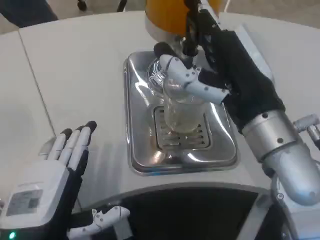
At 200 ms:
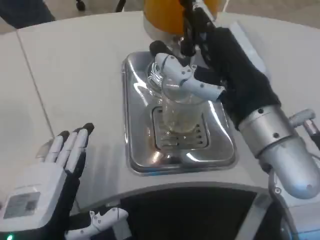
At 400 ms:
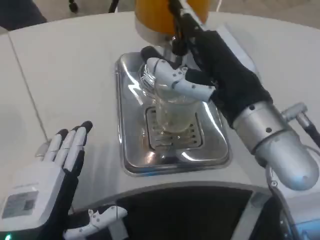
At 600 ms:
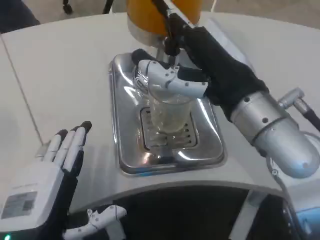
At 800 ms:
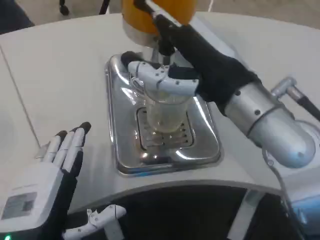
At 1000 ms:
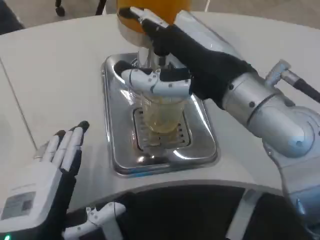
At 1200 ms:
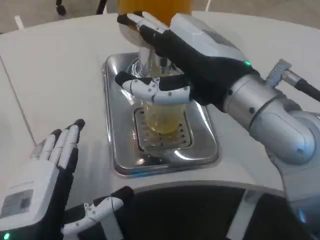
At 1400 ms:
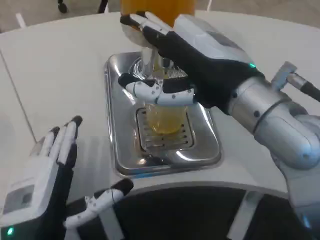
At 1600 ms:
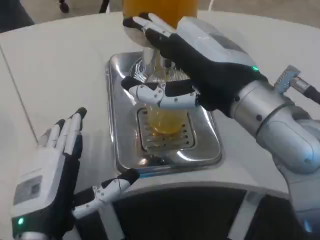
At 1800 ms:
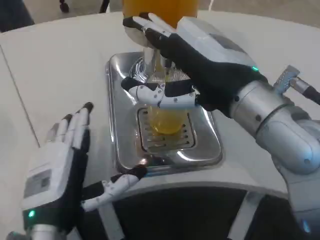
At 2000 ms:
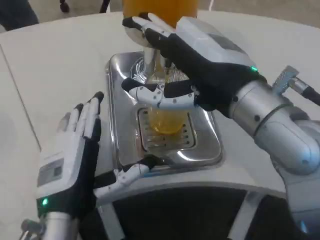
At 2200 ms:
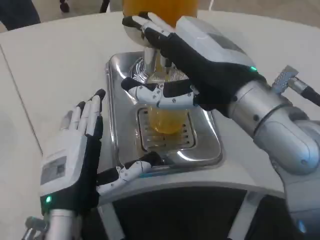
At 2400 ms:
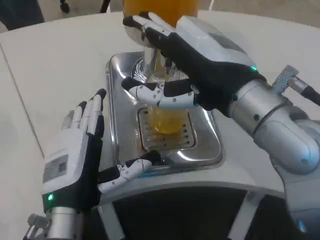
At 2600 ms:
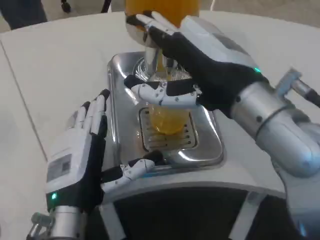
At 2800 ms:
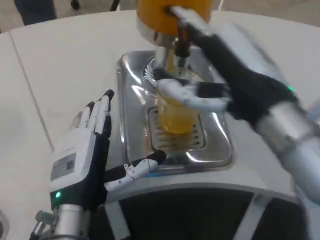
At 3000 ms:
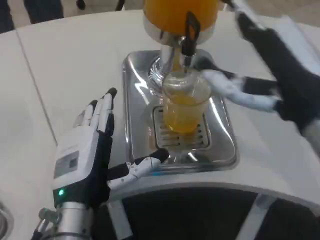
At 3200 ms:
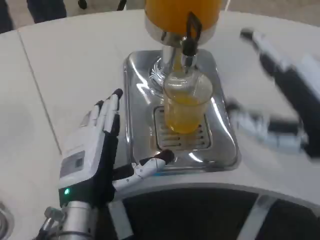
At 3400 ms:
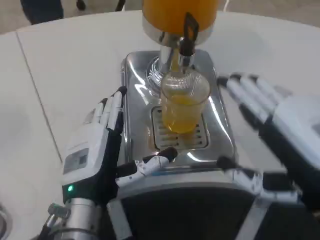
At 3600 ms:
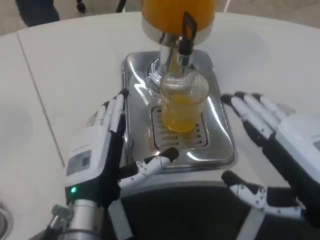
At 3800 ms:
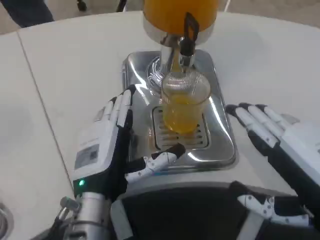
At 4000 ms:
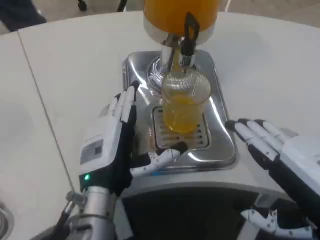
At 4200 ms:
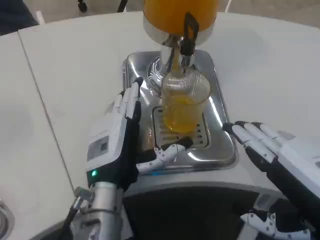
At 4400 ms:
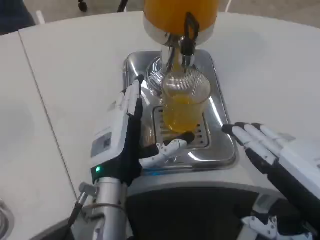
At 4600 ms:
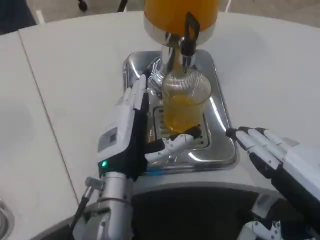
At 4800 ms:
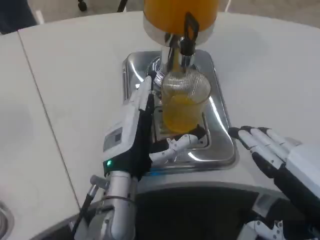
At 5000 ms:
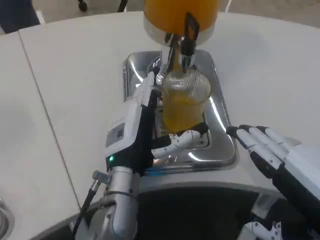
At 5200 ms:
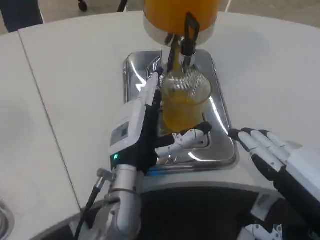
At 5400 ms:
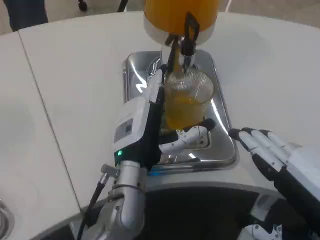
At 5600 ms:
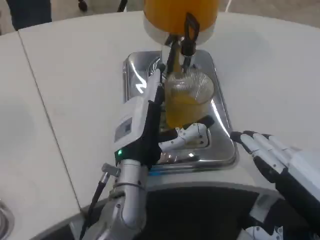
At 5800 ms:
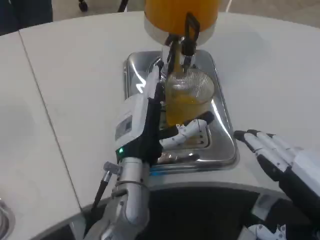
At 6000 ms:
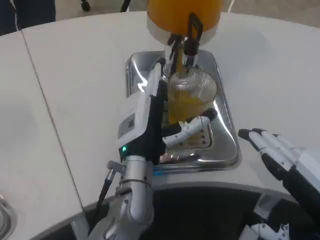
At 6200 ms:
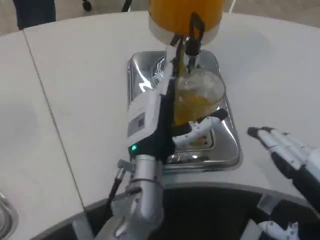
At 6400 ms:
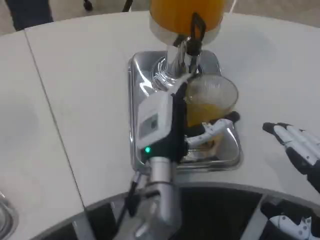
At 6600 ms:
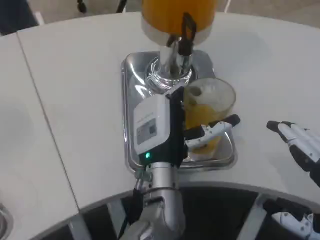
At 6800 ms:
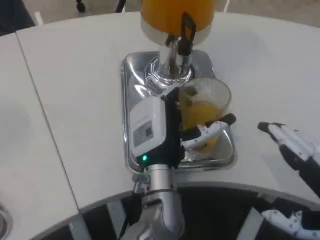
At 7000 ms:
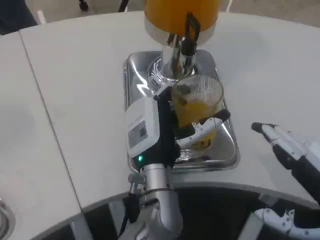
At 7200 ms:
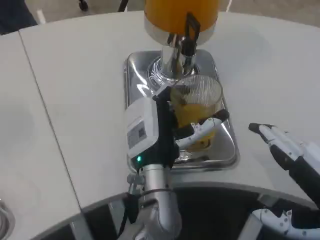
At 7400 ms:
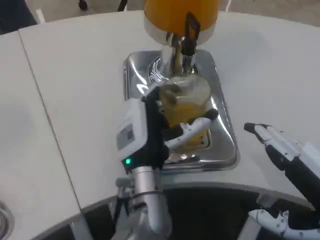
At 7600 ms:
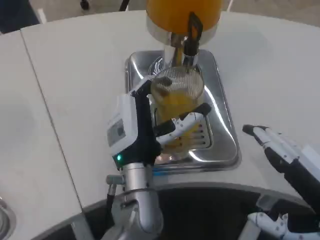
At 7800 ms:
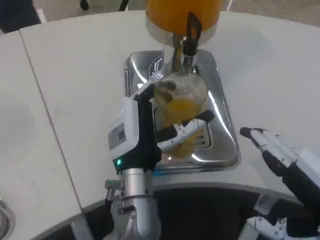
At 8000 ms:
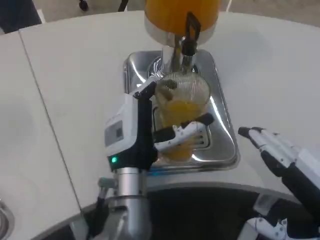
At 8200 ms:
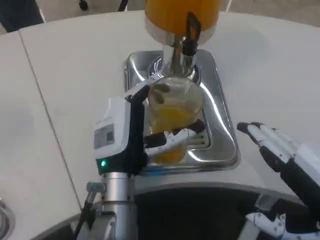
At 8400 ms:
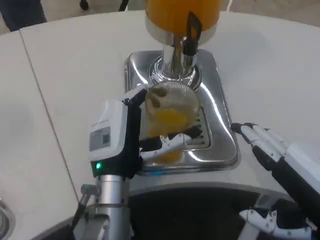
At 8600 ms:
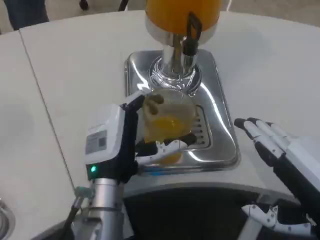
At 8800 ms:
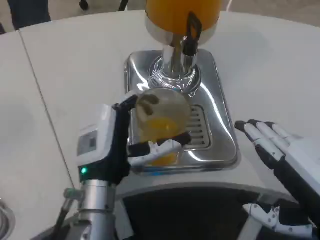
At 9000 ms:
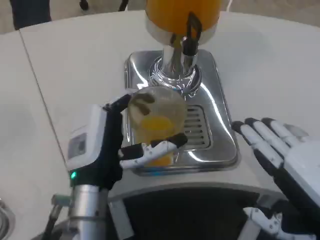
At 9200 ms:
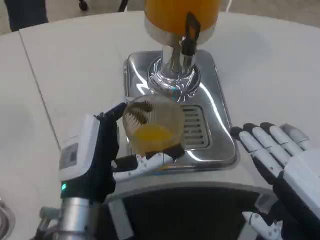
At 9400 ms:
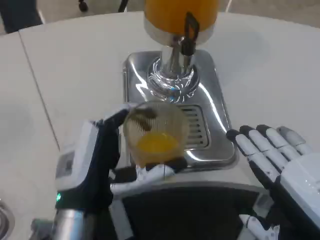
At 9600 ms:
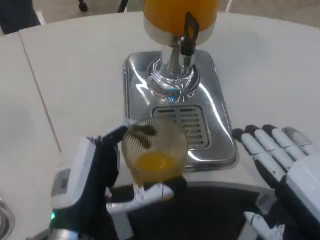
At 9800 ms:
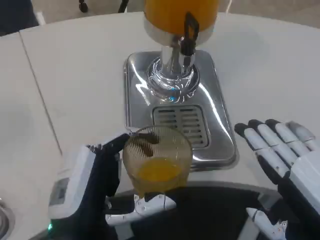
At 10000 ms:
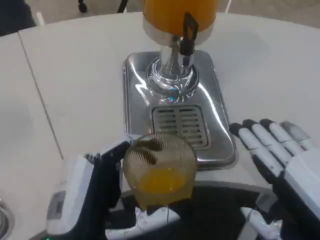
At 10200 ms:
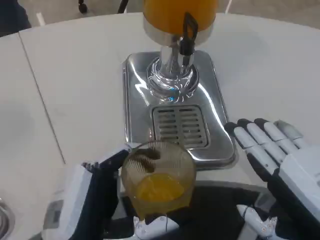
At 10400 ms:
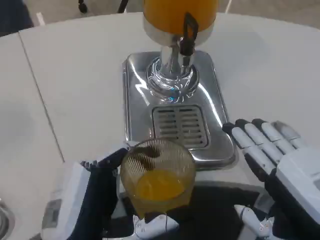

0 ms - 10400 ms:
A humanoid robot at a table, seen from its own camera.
Task of the whole recording: Grasp the cup under the faucet to collect the drink, then remove the cup.
1400 ms - 3000 ms: The right hand moves to the right, about 5 cm, while the left hand goes approximately 5 cm forward.
3000 ms - 4400 ms: The right hand travels backward and downward by about 10 cm; the left hand shifts by approximately 5 cm.
4400 ms - 6000 ms: The left hand moves about 5 cm.
6000 ms - 7400 ms: The hands make only small movements.
7400 ms - 9000 ms: The left hand heads to the left and backward, covering some 10 cm.
9000 ms - 10400 ms: The left hand travels backward by about 10 cm.

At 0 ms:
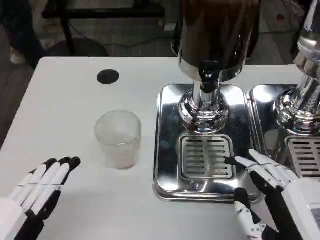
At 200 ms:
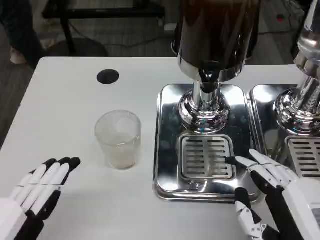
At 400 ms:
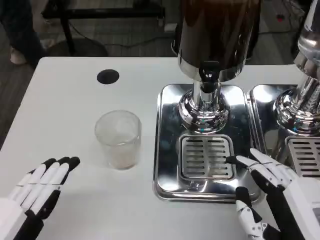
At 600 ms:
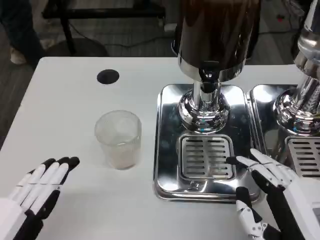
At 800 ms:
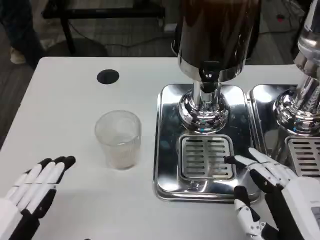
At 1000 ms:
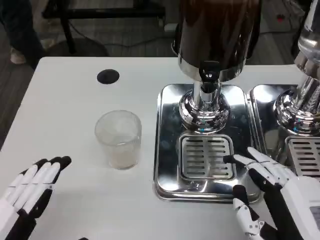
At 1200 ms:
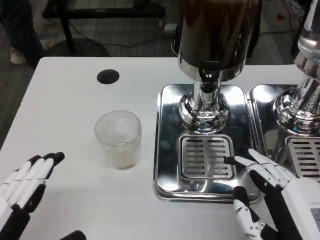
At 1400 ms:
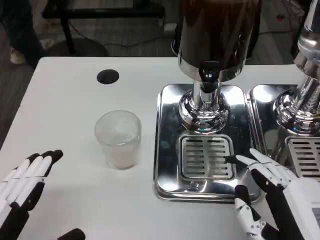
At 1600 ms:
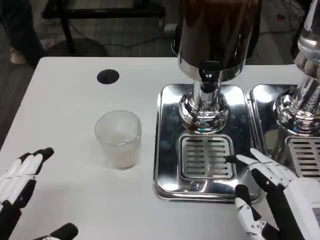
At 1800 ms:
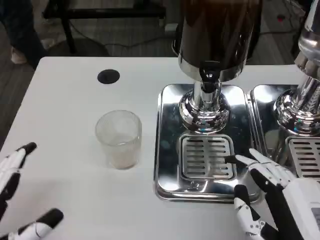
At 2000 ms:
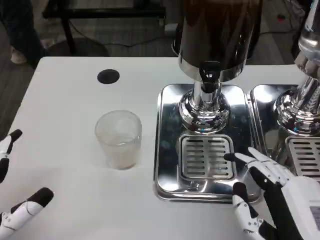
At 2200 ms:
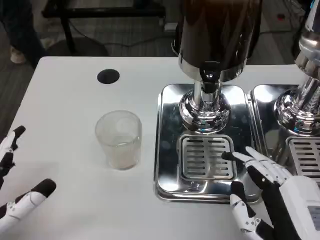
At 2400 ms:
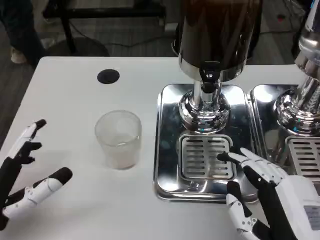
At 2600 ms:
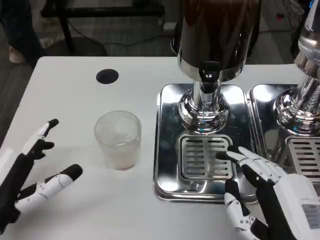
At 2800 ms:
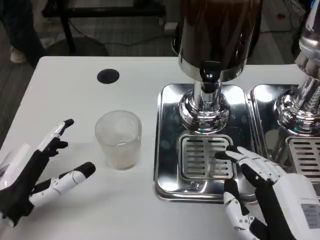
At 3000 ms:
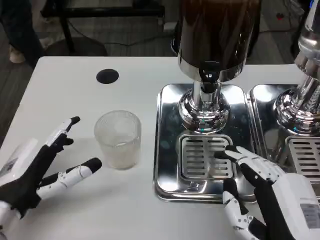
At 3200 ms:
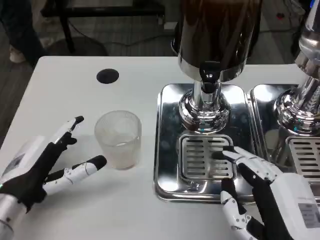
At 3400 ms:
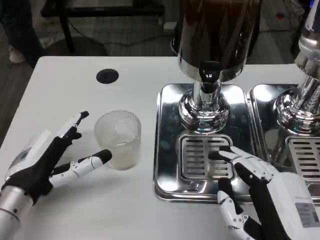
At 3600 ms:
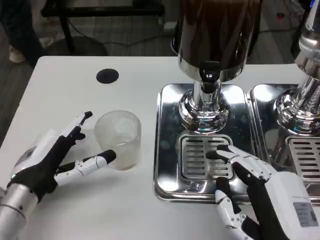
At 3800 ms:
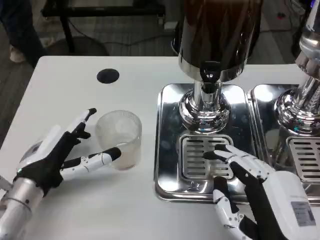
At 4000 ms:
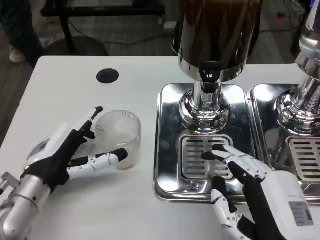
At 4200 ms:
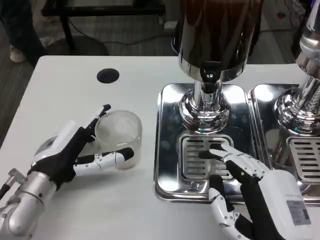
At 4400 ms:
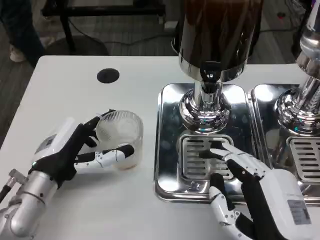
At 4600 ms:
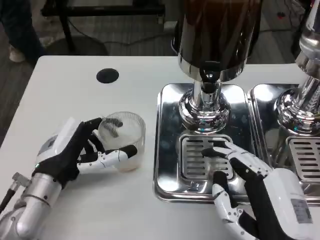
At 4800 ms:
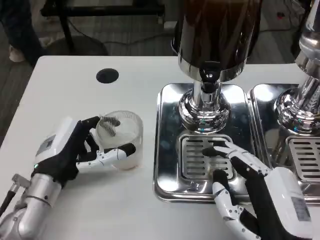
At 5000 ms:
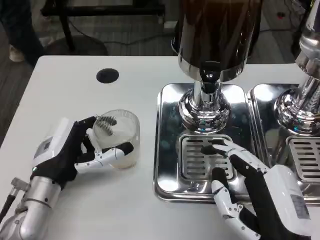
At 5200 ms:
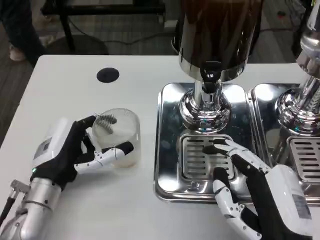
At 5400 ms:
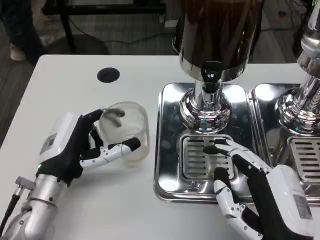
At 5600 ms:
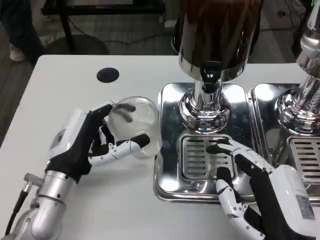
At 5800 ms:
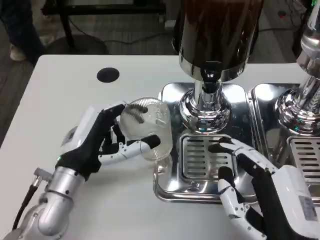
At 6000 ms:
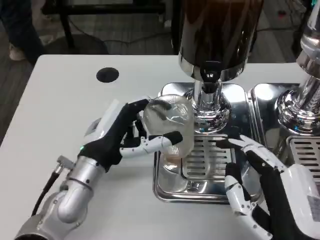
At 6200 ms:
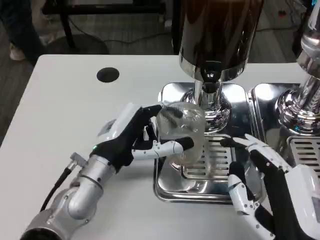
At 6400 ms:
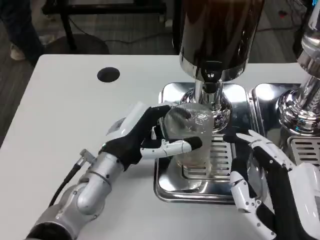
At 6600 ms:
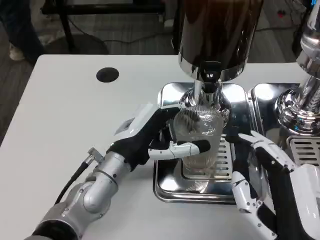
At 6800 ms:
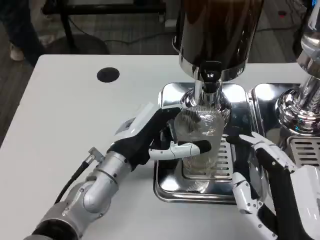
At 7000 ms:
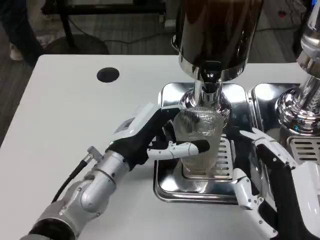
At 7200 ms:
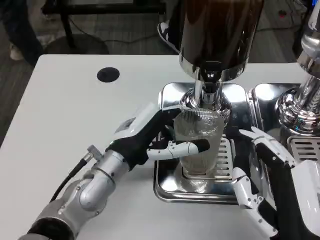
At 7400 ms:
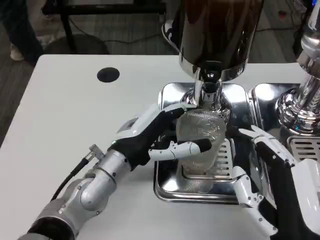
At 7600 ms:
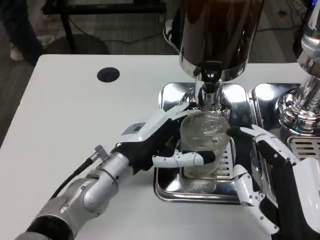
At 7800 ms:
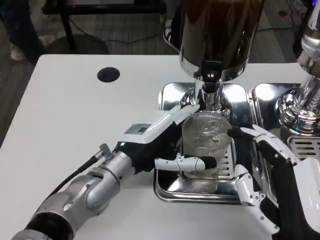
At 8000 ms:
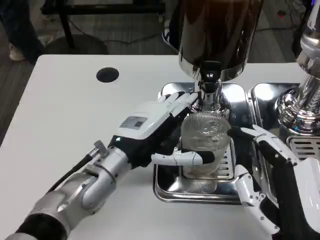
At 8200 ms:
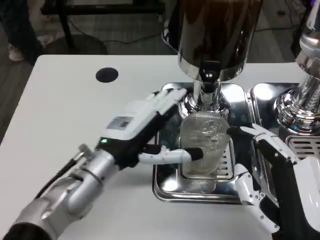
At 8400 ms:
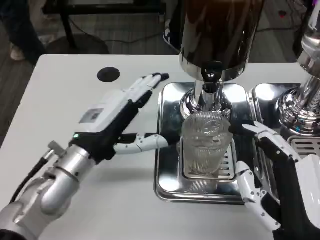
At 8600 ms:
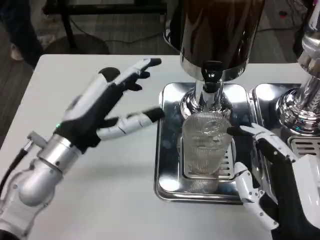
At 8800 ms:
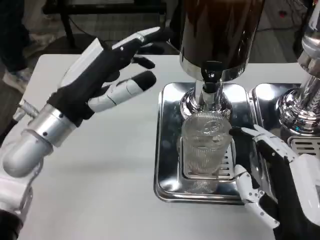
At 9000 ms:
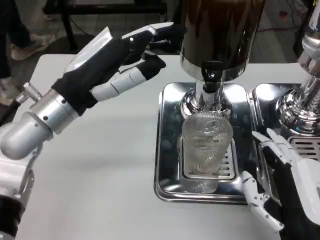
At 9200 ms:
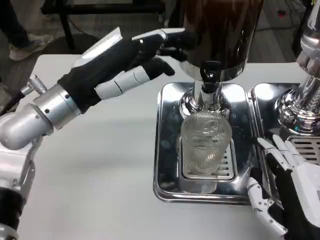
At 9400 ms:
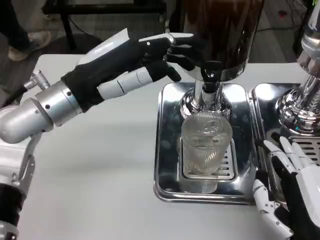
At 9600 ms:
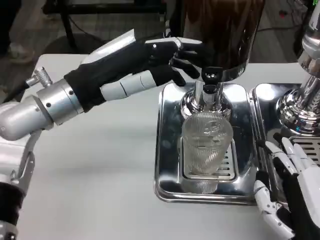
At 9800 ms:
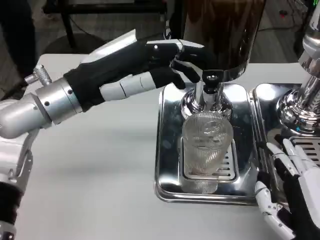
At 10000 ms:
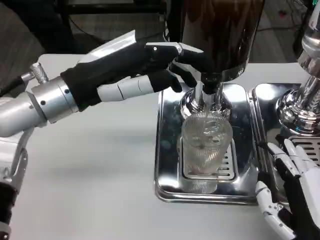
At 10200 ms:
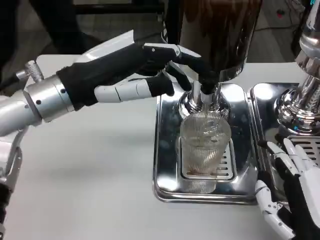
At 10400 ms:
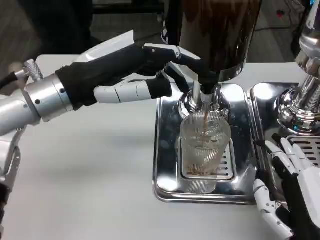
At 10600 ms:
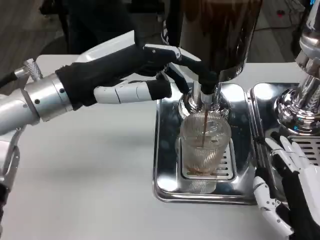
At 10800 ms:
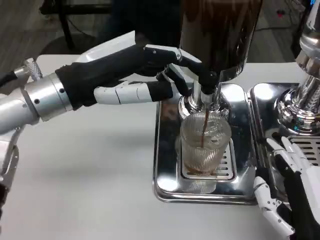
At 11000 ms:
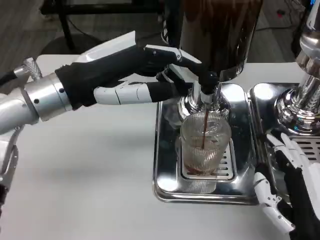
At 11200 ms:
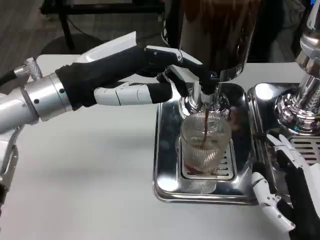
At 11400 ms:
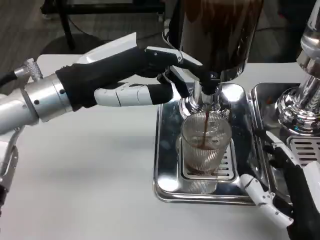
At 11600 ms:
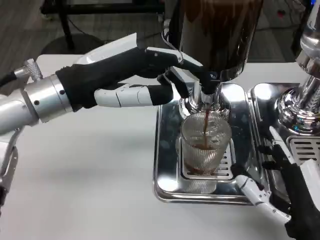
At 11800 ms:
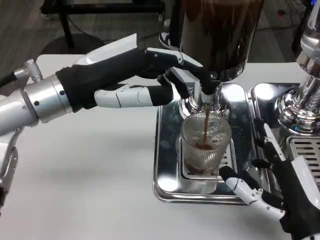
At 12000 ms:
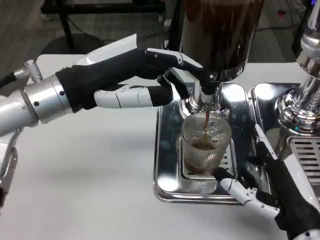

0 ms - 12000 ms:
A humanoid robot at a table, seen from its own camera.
Task of the whole recording: Grasp the cup under the faucet to collect the drink, then remove the cup.
0 ms - 1600 ms: The hands stay close to where they were, moving slightly.
1600 ms - 3000 ms: The left hand heads forward, covering about 10 cm.
3000 ms - 4400 ms: The left hand moves forward, about 5 cm.
4400 ms - 6000 ms: The left hand is displaced to the right by some 5 cm.
7600 ms - 9000 ms: The left hand shifts some 15 cm upward and to the left.
